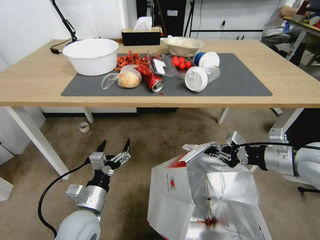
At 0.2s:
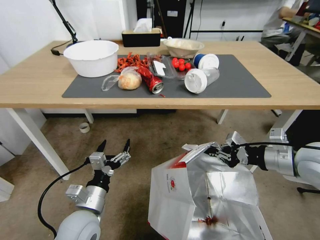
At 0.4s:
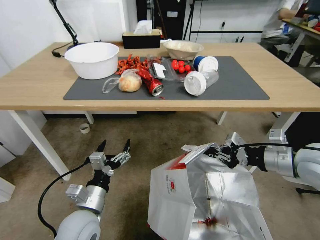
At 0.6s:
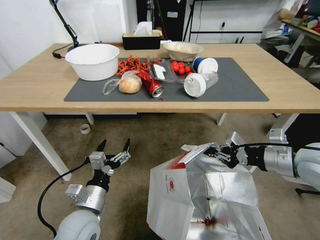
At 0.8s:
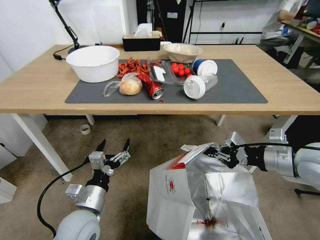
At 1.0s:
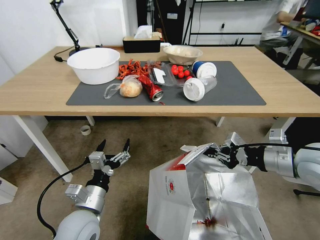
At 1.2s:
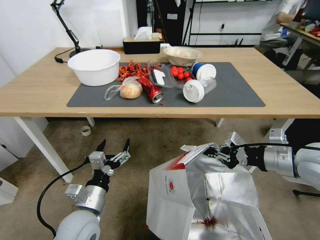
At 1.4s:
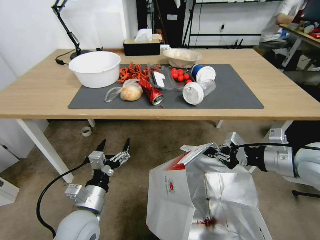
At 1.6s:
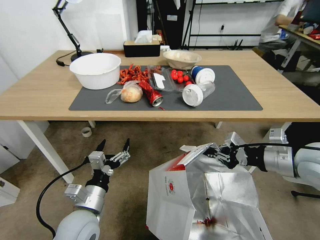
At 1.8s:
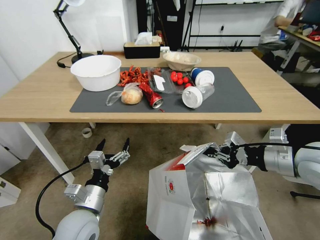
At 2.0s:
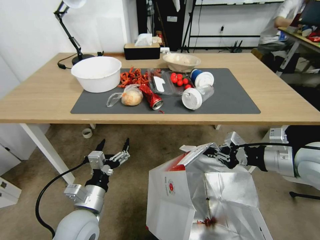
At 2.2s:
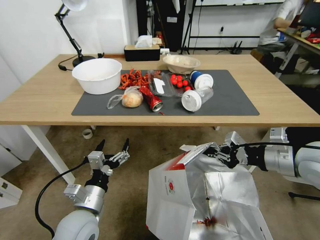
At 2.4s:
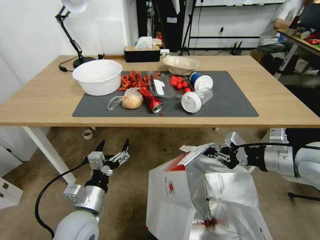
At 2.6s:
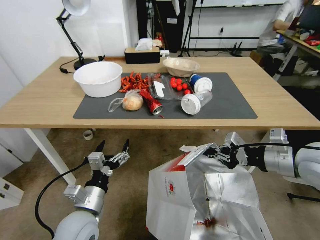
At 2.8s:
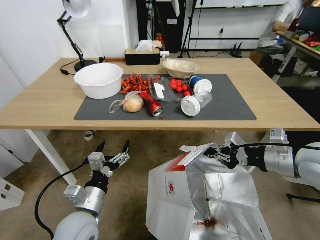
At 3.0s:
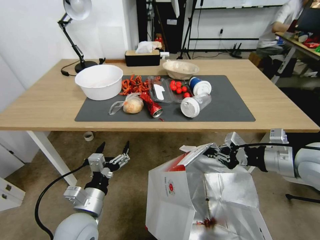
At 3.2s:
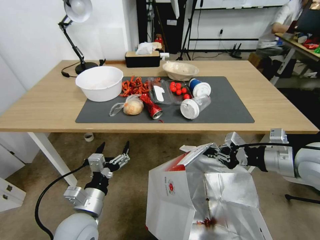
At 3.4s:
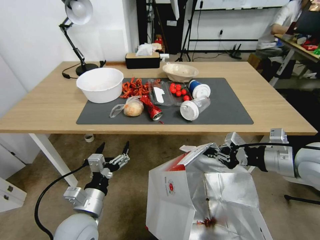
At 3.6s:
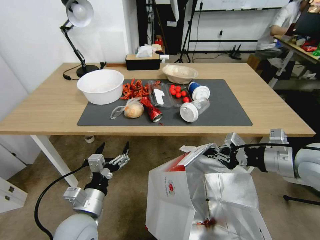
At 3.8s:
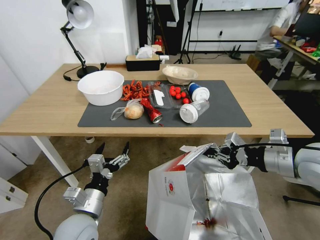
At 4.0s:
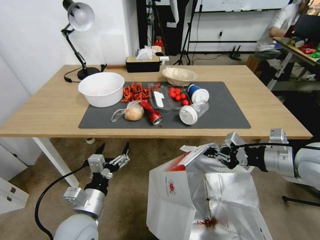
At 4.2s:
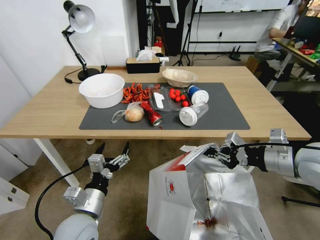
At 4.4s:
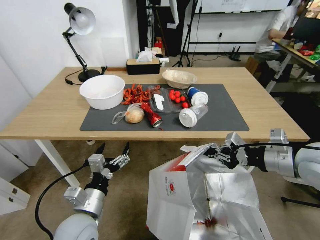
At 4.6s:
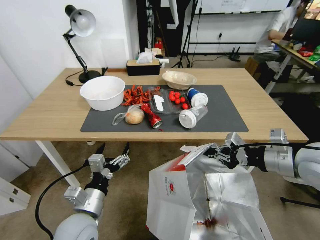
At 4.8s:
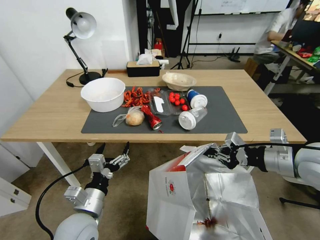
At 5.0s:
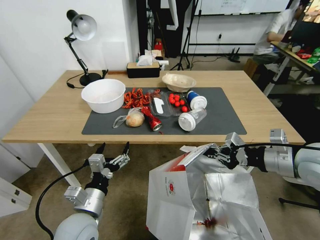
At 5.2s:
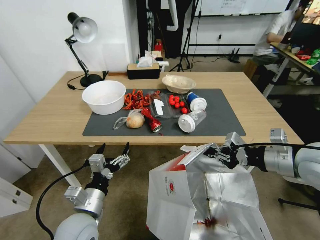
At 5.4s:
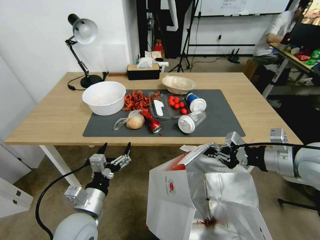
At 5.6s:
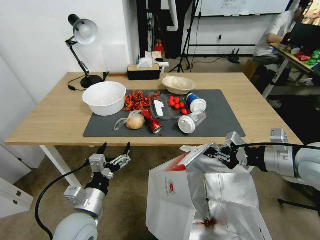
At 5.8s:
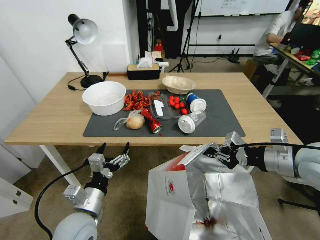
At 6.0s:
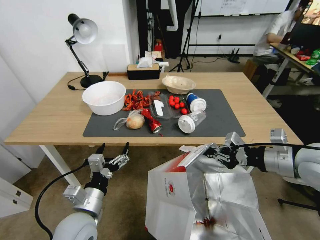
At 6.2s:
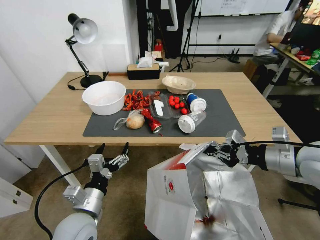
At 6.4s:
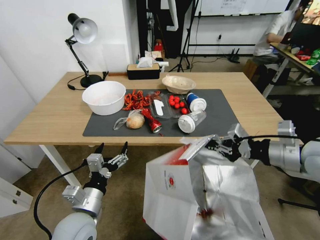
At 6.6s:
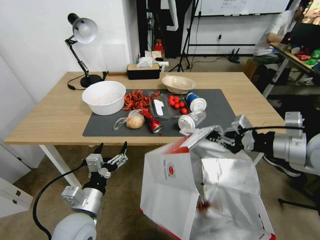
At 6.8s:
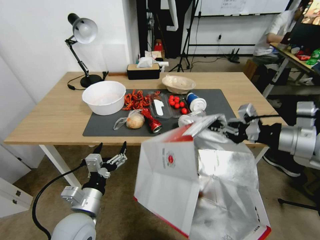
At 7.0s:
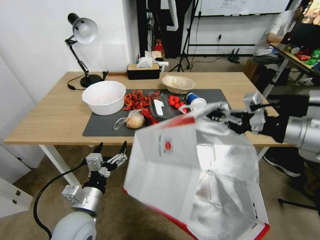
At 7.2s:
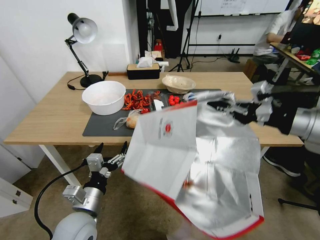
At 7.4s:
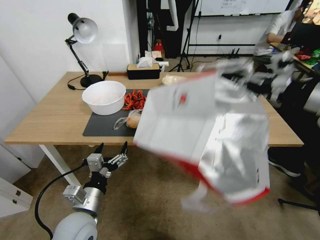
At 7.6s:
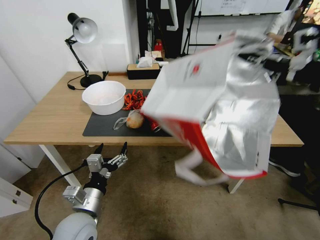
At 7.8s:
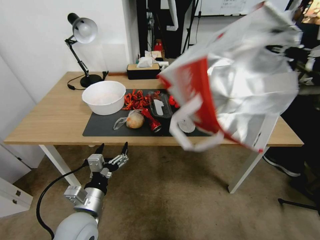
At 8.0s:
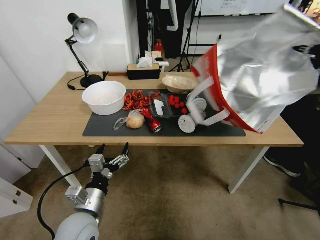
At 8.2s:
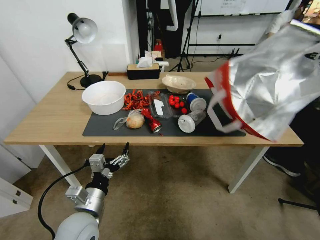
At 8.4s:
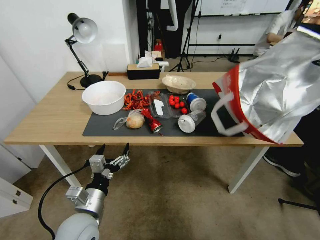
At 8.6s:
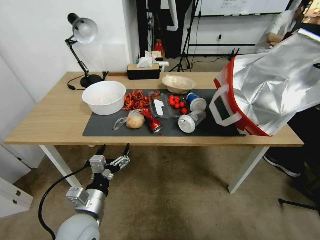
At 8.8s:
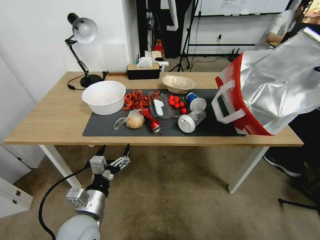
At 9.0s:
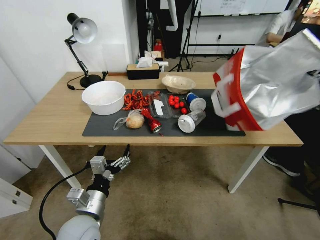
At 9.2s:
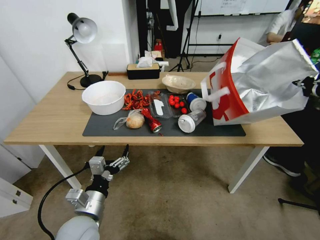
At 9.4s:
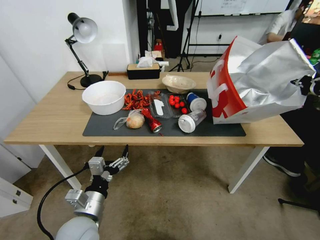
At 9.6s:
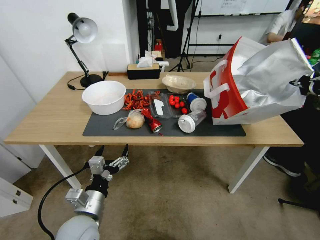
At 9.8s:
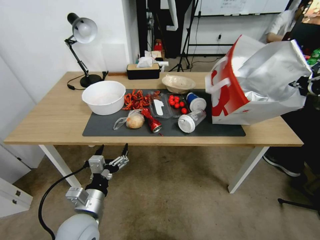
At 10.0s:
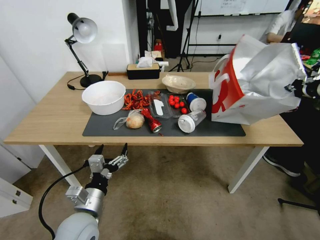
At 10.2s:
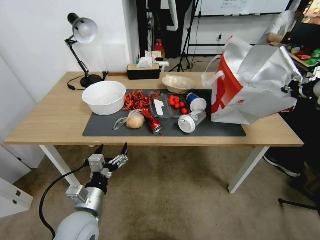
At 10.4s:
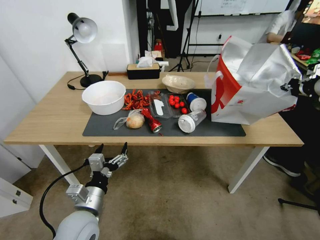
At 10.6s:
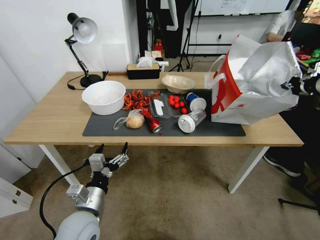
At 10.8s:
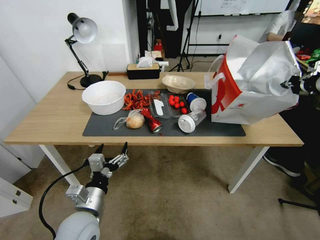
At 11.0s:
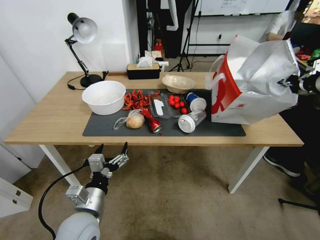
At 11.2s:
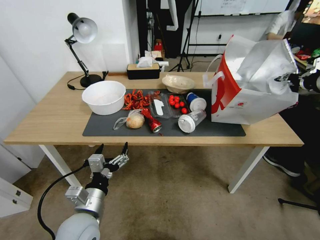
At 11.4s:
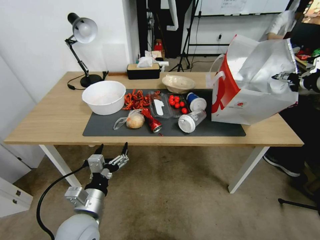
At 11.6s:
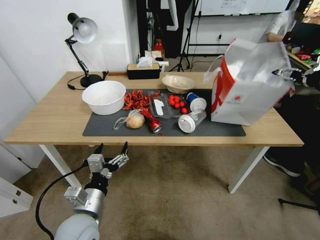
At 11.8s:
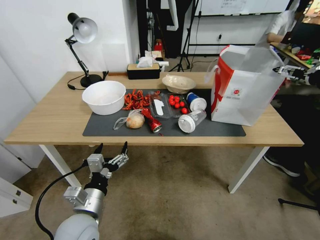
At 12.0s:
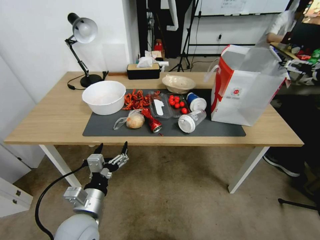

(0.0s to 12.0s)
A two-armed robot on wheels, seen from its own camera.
Task of the whole recording: Pick up the food delivery bag from the floor and place it on the table.
6.0s - 7.6s: The right gripper moves upward, some 15 cm.
7.6s - 9.0s: The right gripper travels to the right and forward by some 10 cm.
9.0s - 10.4s: The right gripper goes some 5 cm forward.
10.4s - 12.0s: The right gripper opens up.

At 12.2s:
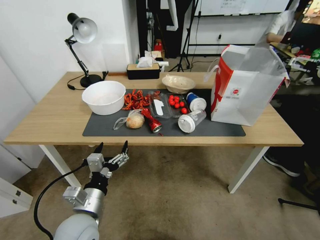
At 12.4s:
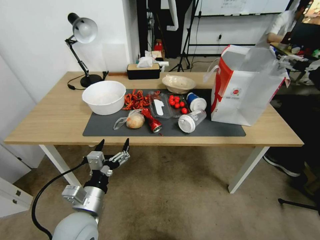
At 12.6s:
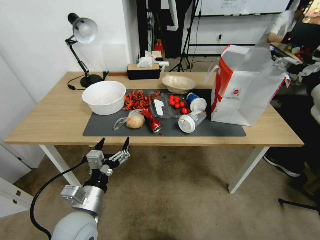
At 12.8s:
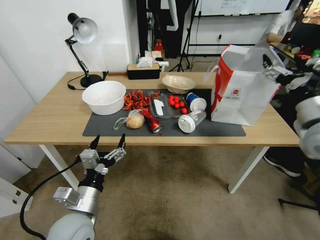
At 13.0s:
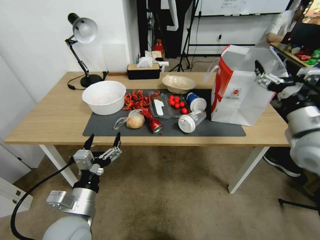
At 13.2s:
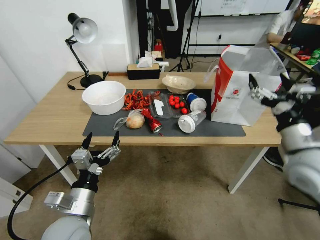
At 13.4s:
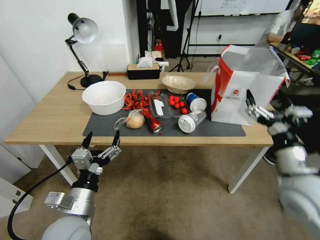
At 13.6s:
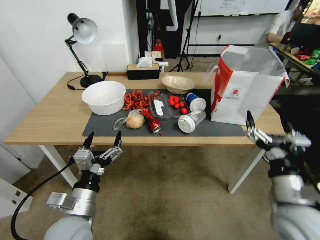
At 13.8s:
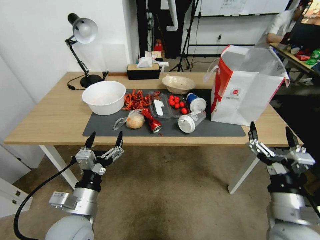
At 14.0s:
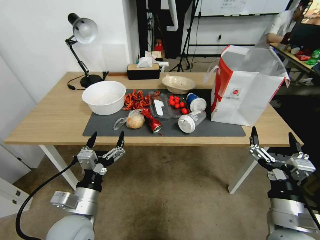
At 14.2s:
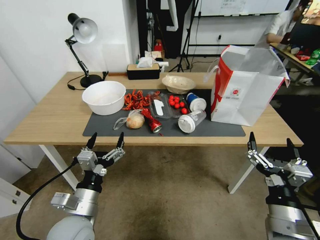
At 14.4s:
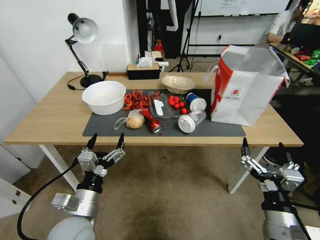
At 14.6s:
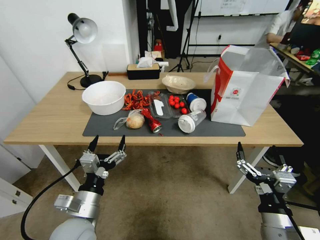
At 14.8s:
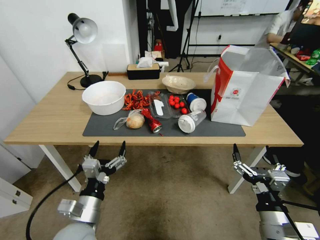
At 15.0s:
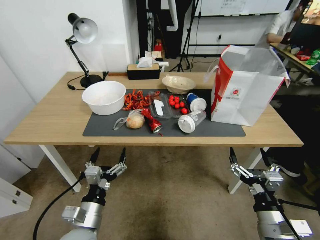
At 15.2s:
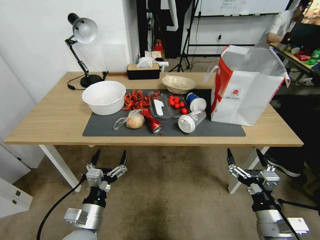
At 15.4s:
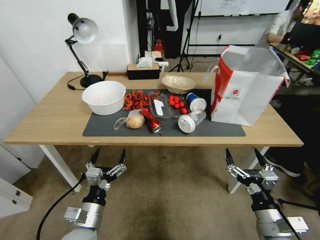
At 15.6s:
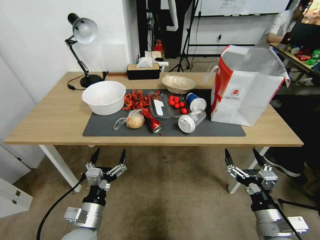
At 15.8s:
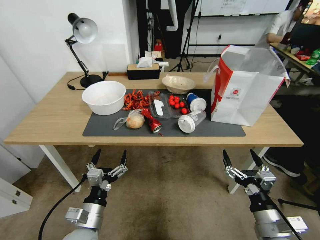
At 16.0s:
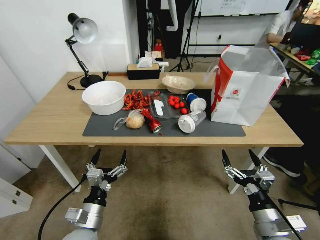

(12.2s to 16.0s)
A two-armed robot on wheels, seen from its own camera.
Task of the whole recording: Pick up the food delivery bag from the floor and place it on the table.
12.2s - 13.4s: The right gripper heads downward, to the left and backward, covering approximately 30 cm.
13.4s - 14.8s: The right gripper heads backward and downward, covering approximately 15 cm.
14.8s - 16.0s: The grippers move only a little.

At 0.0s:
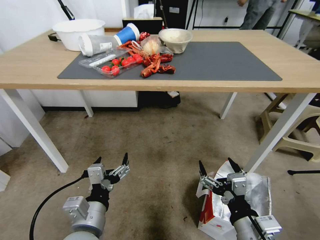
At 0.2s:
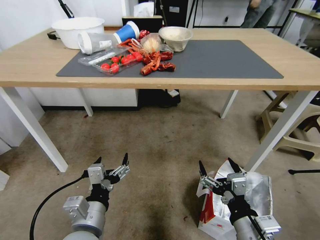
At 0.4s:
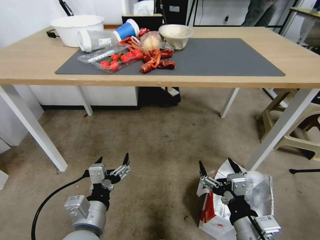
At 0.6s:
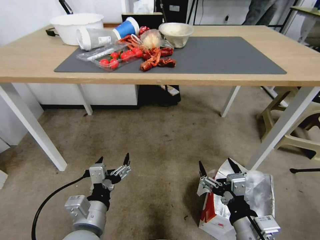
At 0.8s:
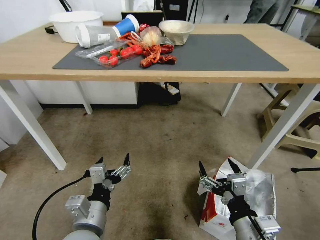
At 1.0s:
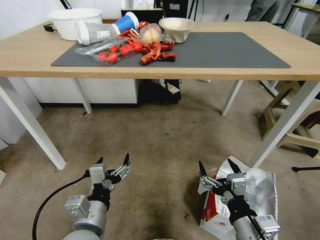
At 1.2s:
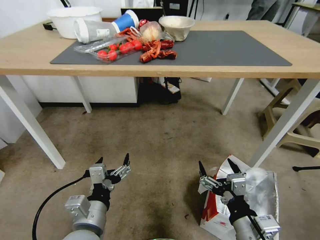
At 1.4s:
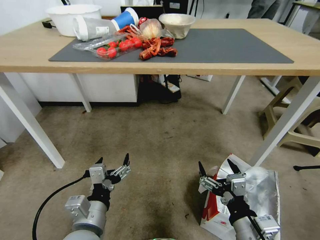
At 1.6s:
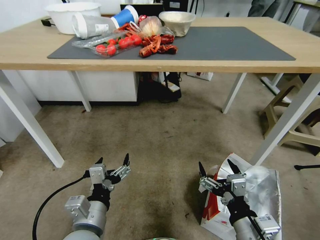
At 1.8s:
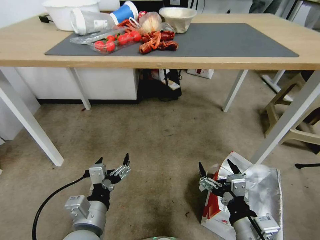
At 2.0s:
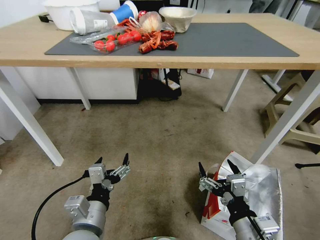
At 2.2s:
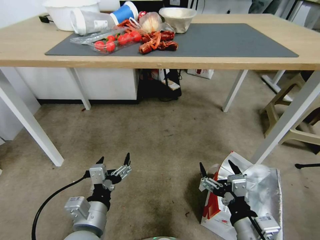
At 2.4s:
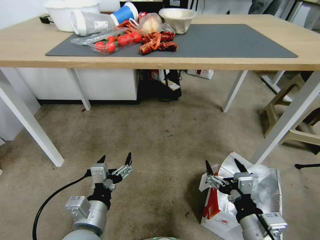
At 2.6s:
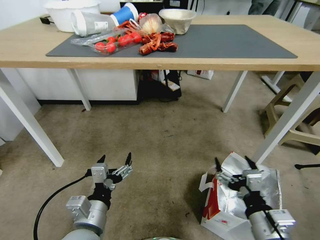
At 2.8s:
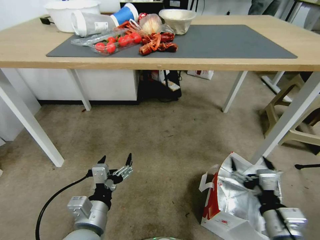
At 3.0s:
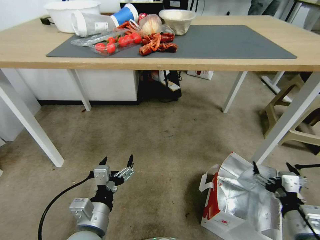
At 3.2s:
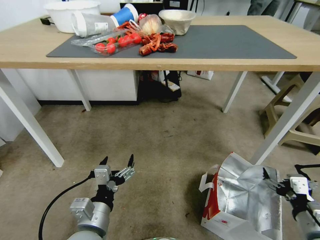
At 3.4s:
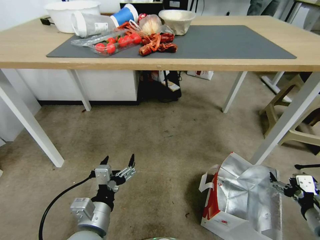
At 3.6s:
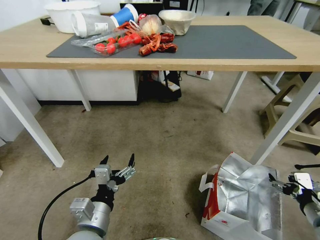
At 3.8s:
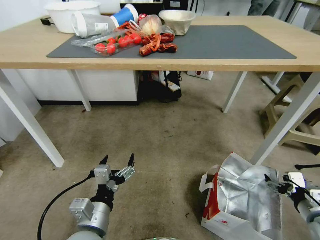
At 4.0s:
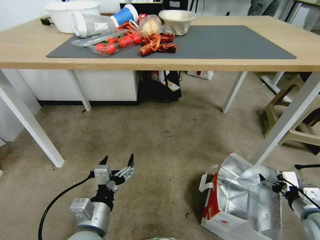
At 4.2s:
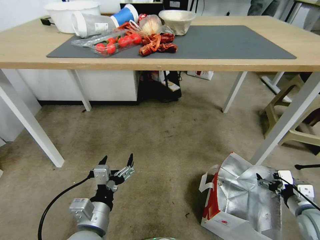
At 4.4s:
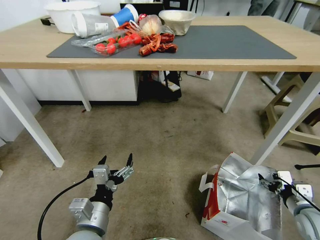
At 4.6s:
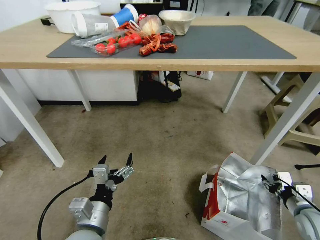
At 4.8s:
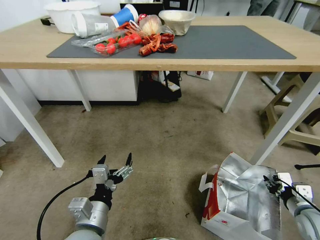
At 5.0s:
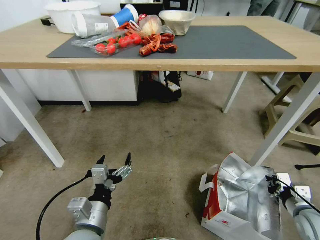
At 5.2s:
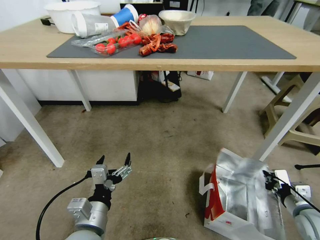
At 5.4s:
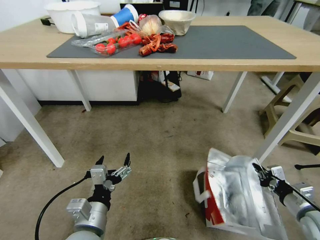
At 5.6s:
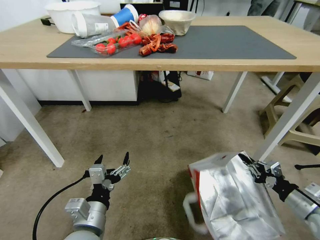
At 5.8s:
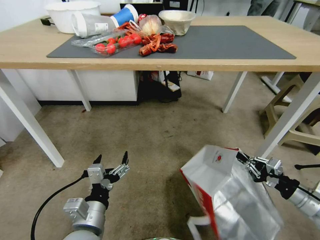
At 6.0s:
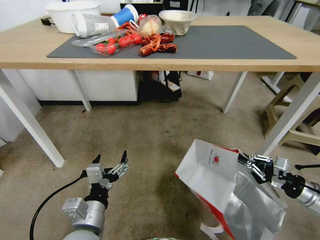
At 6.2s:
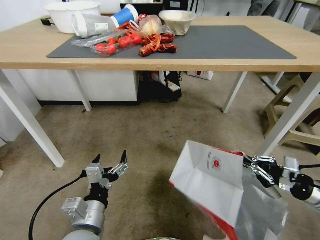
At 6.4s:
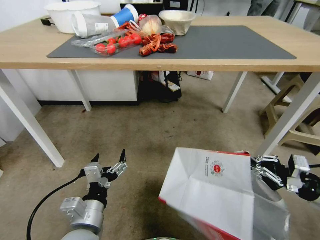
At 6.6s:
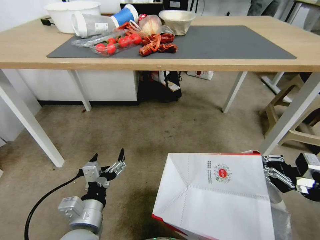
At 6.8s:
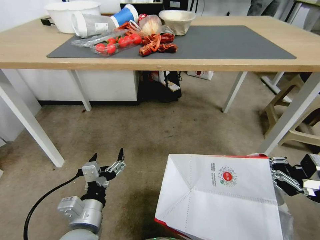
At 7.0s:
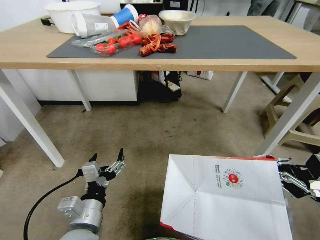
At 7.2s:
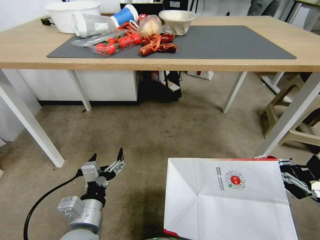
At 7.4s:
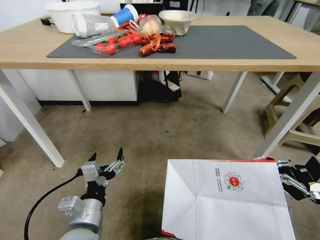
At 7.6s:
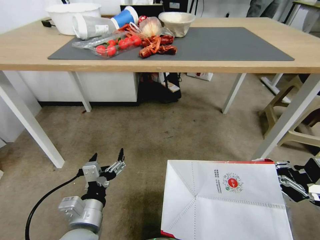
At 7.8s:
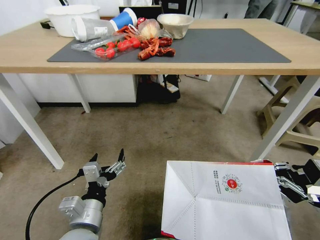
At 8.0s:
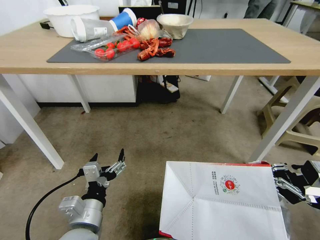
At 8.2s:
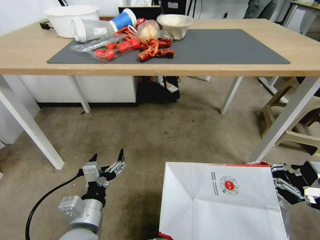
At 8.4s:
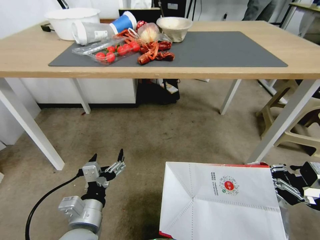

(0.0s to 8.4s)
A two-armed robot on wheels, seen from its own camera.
Task of the whole recording: Pick up the food delivery bag from the floor and place it on the table.
1.4s - 2.8s: The right gripper is displaced to the right by about 5 cm.
2.8s - 4.2s: The right gripper moves to the right and forward, about 15 cm.
4.2s - 5.6s: The right gripper closes up.
5.6s - 7.0s: The right gripper heads upward, covering roughly 10 cm.
